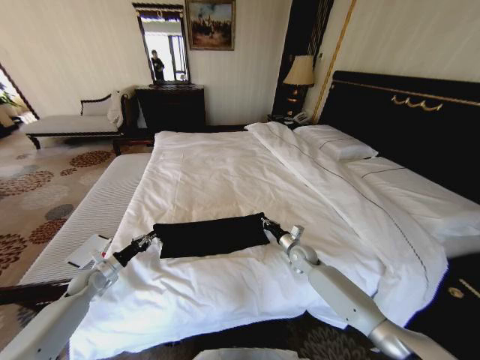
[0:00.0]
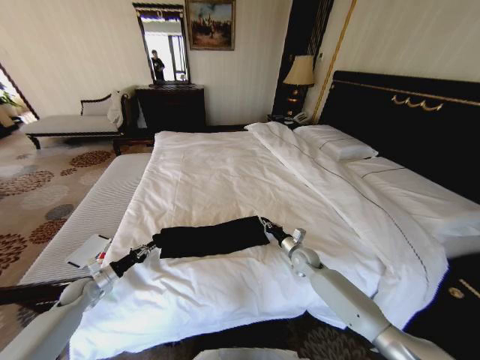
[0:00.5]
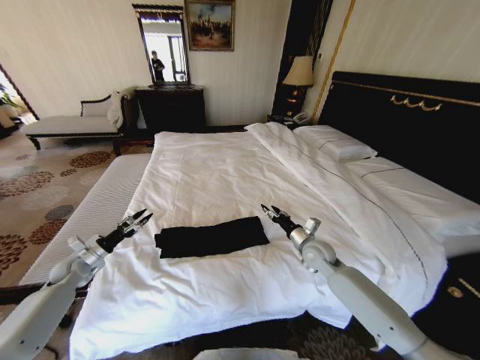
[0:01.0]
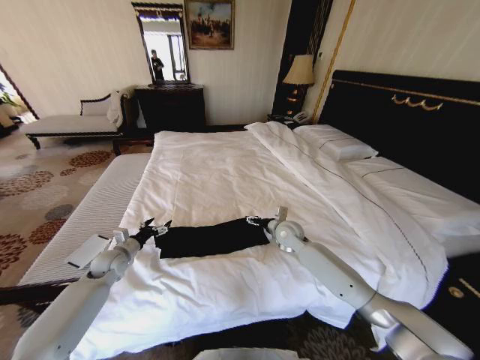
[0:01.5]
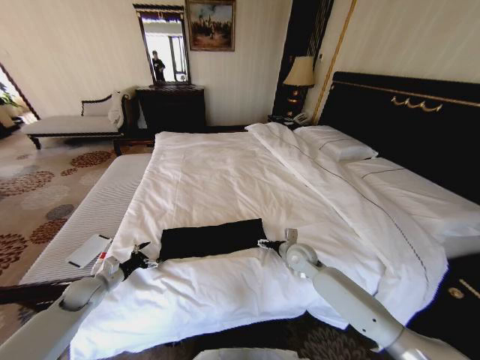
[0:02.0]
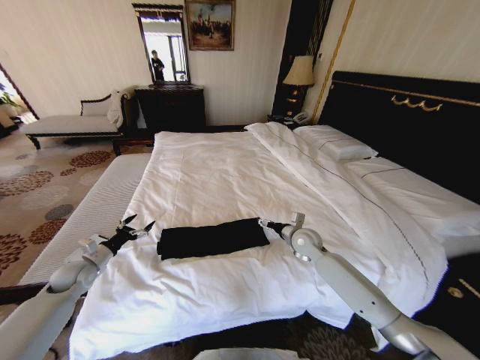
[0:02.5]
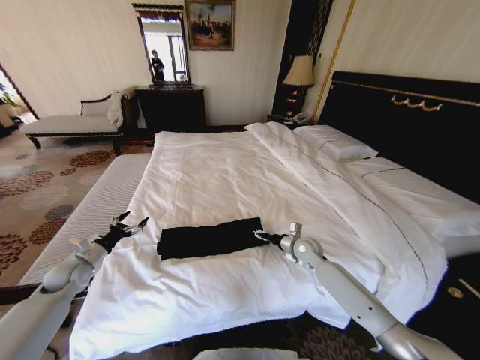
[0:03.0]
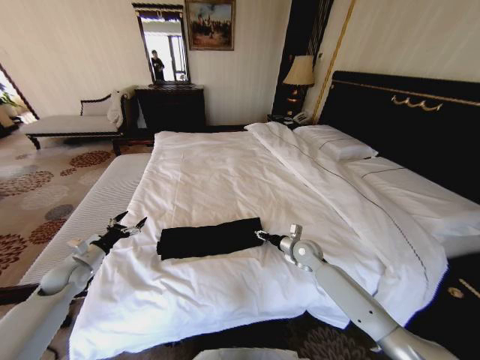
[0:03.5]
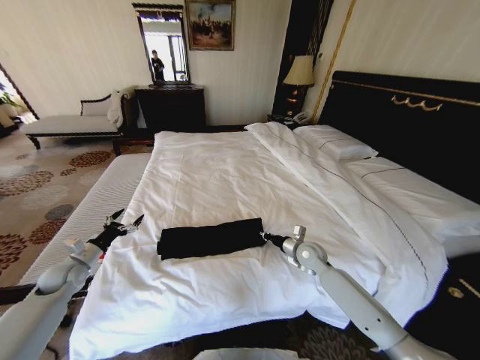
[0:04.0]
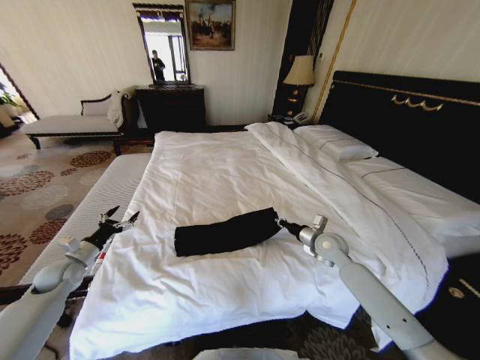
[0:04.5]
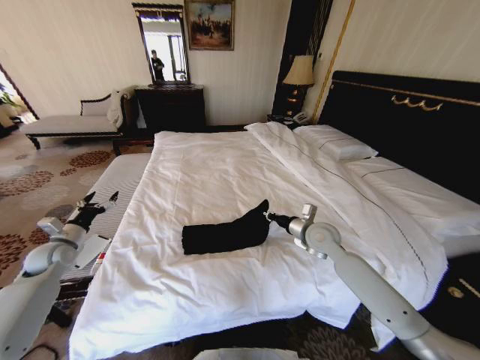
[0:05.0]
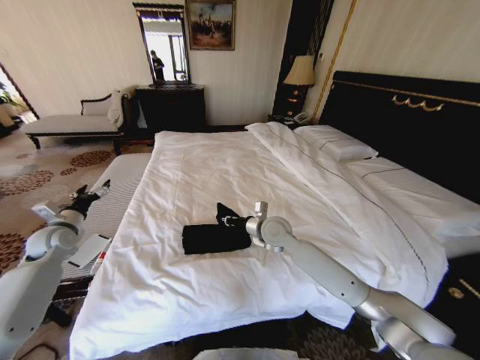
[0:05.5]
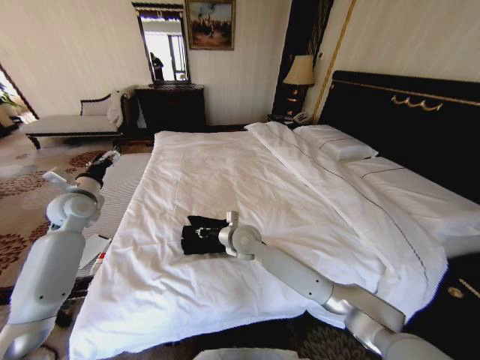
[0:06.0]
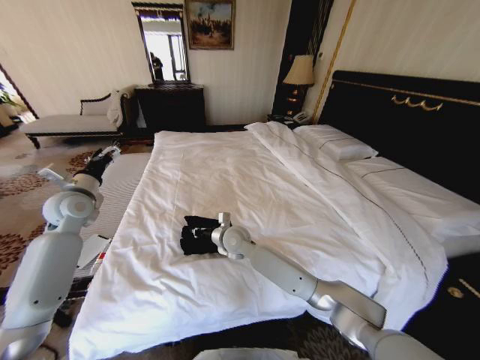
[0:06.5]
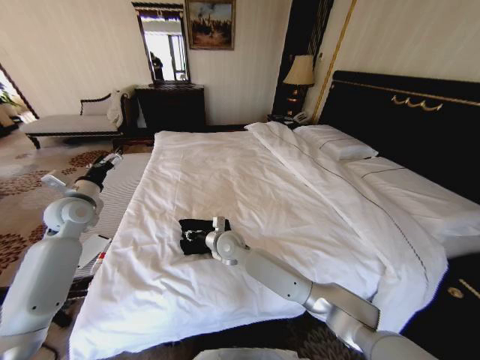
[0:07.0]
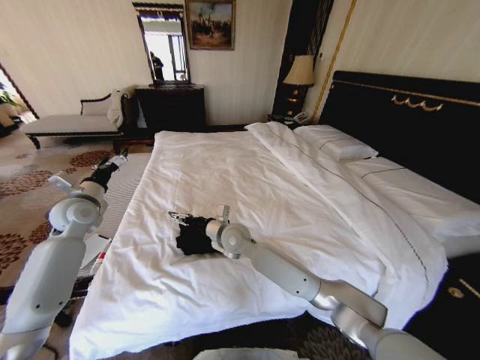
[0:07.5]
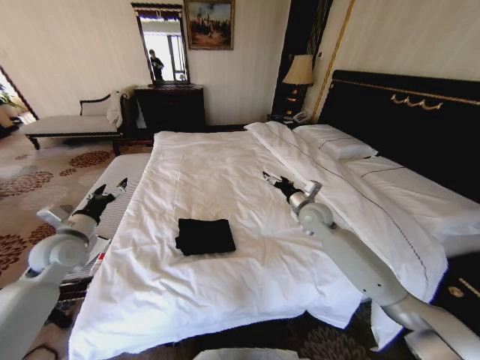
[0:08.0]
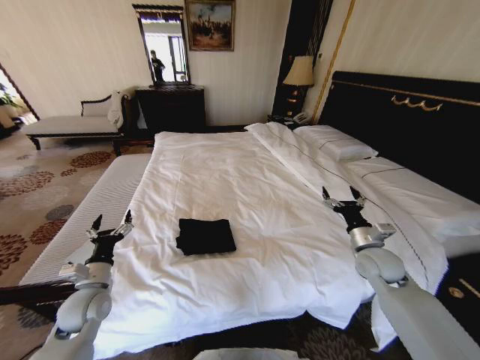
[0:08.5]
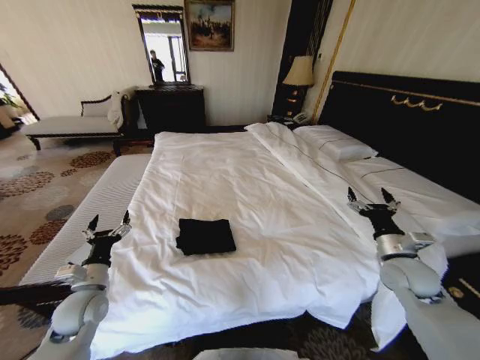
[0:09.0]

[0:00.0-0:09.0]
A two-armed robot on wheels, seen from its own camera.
Task of the whole recording: Fold the clothes on the bed.
0:00.0 to 0:02.0: The left gripper opens its fingers; the right gripper shifts some 5 cm upward, and opens its fingers.
0:02.0 to 0:04.5: The right gripper heads to the right, covering about 10 cm, and closes its fingers, while the left gripper heads to the left and upward, covering about 10 cm.
0:04.5 to 0:07.0: The right gripper travels to the left by roughly 35 cm; the left gripper goes some 20 cm upward, forward and to the right.
0:07.0 to 0:09.0: The right gripper heads to the right, covering about 40 cm, and opens up; the left gripper shifts some 25 cm backward and downward.
